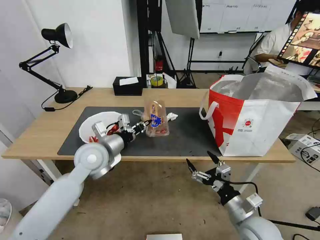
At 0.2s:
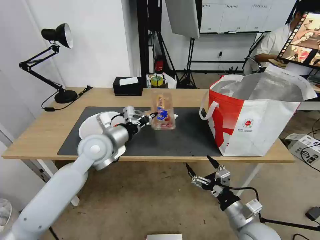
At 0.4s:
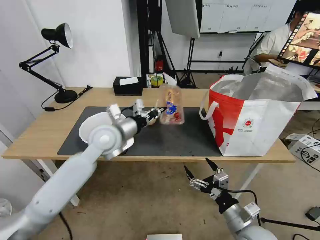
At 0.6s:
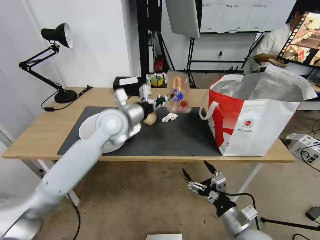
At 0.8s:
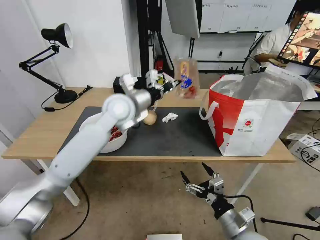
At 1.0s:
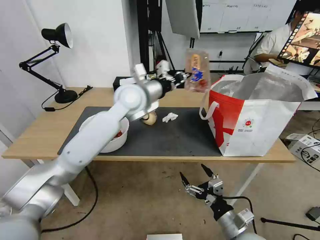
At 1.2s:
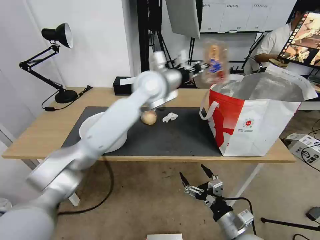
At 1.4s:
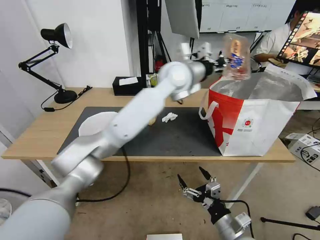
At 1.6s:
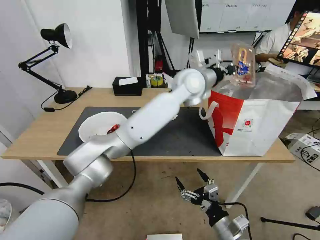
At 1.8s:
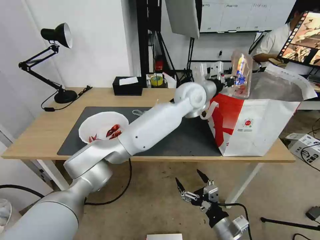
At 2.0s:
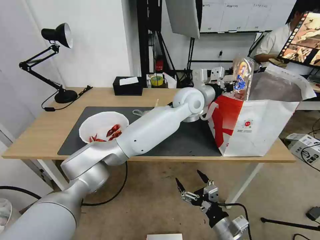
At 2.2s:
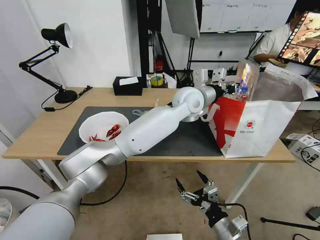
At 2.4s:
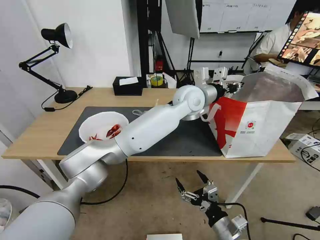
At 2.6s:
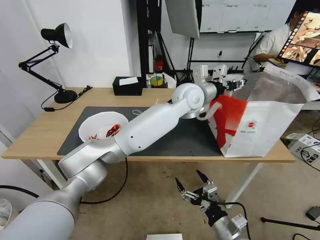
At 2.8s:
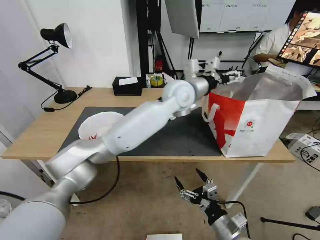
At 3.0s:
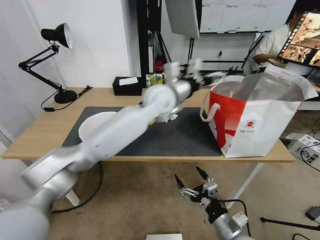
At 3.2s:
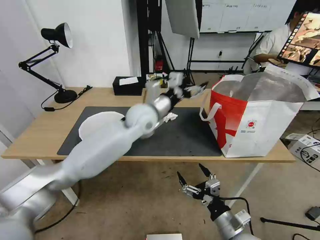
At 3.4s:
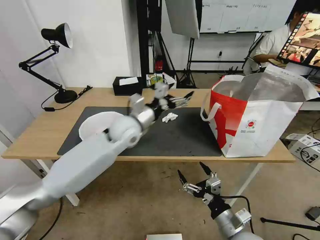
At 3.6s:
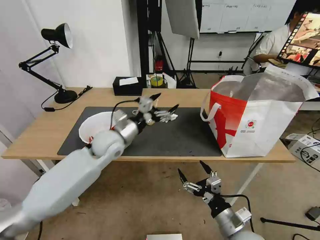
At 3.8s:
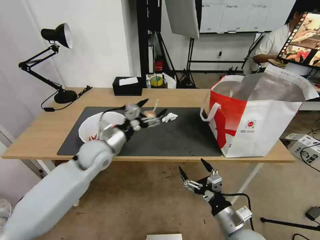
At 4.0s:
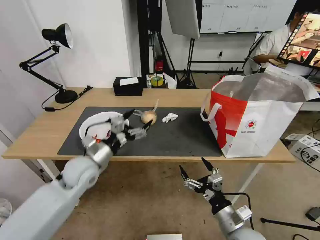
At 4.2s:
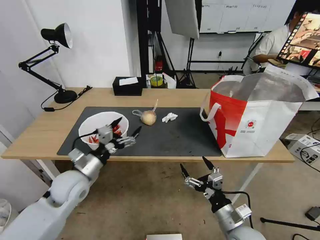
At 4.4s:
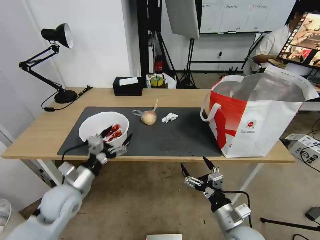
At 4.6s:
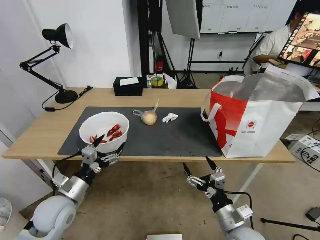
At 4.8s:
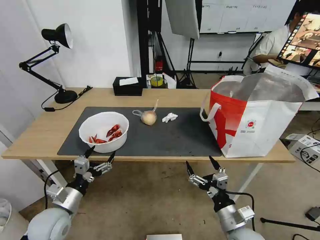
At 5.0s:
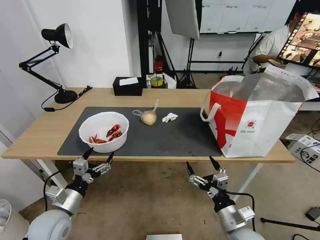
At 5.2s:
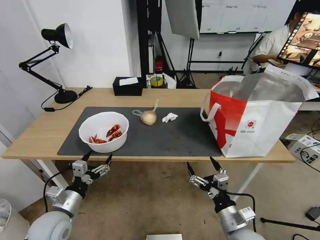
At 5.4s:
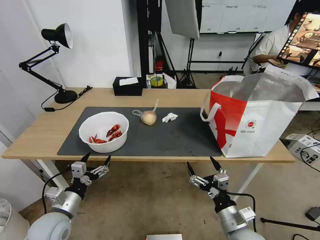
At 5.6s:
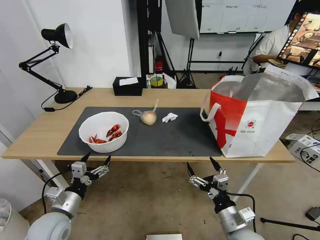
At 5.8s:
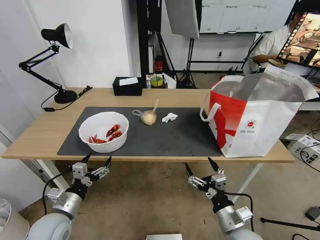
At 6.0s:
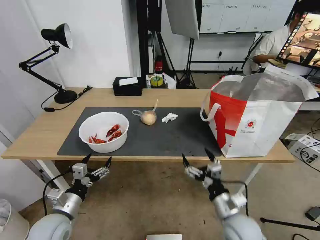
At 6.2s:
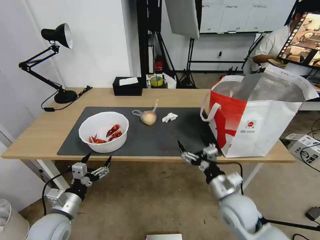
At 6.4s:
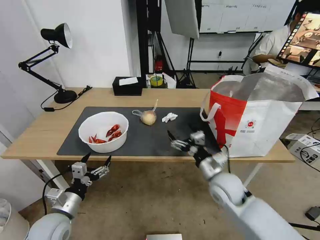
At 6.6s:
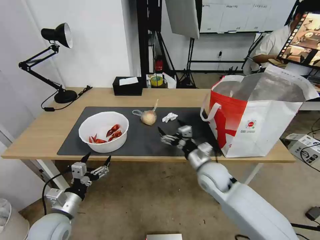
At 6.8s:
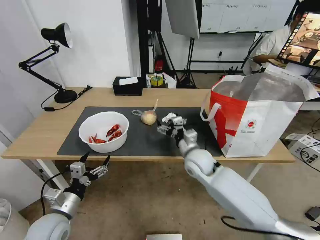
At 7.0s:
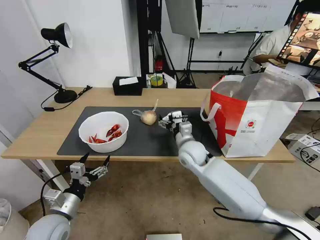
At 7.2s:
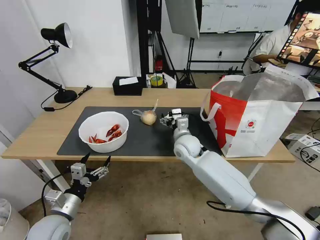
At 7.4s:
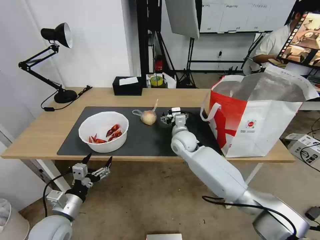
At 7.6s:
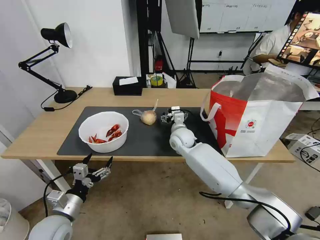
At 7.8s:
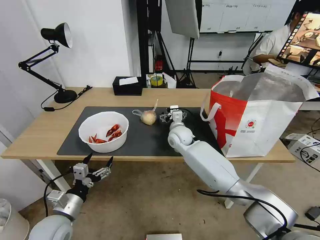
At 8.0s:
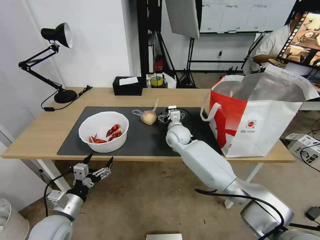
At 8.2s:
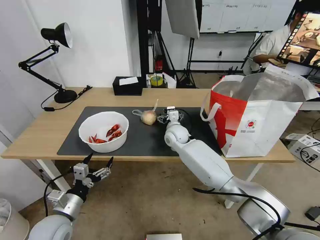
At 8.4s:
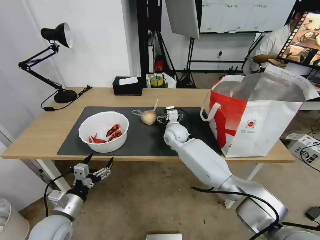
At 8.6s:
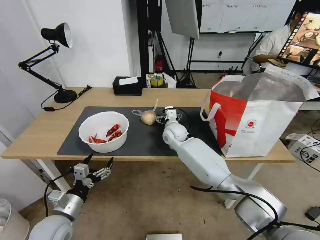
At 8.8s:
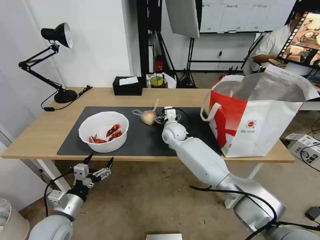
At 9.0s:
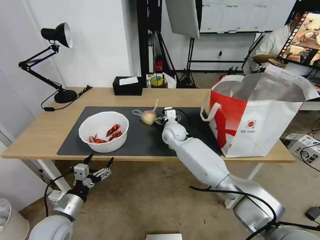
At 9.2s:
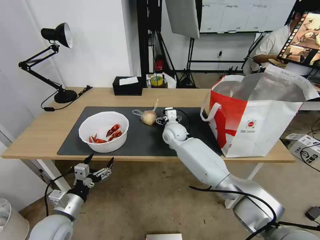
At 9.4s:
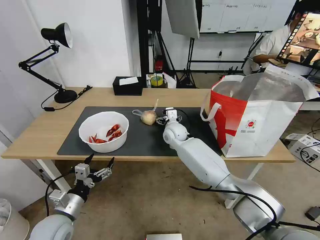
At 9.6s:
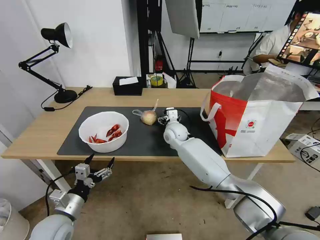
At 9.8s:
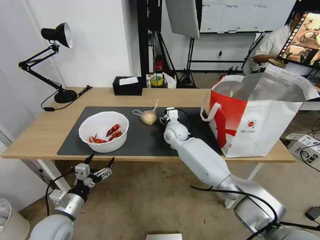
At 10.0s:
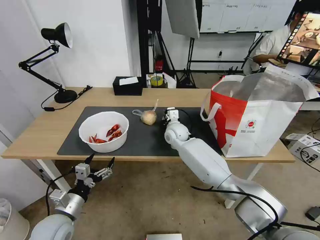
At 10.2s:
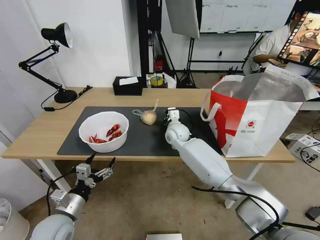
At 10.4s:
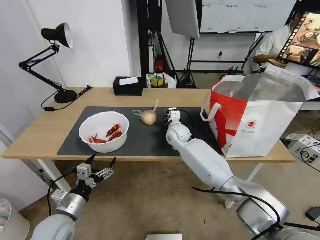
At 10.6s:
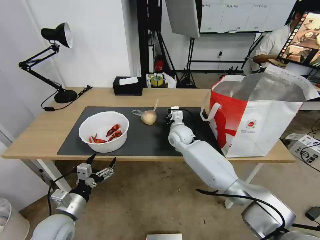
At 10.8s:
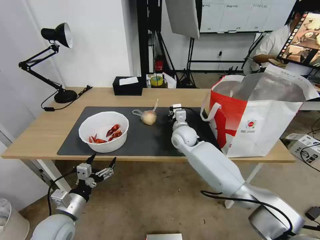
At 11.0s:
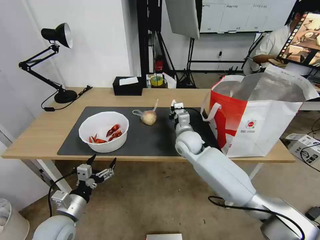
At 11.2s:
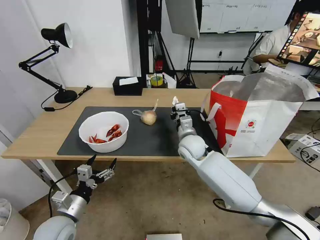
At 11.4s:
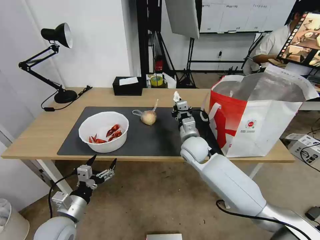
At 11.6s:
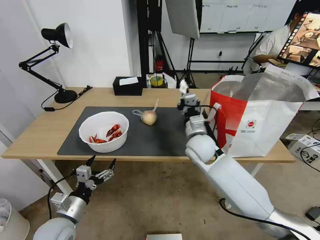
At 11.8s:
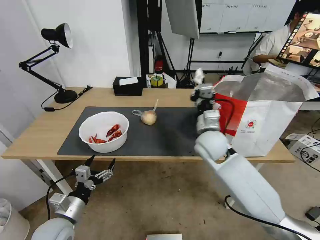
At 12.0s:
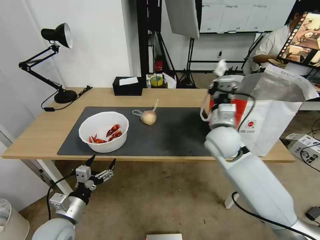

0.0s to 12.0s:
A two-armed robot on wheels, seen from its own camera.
Task of the whole recording: Pick up the trash from the table and place it into the takeout bag.
0.0s to 1.6s: The right gripper heads backward, covering about 5 cm; the left gripper moves to the right, forward and upward, about 35 cm.
1.6s to 3.0s: The left gripper shifts approximately 10 cm to the left, and opens its fingers.
3.0s to 4.4s: The left gripper heads to the left, backward and downward, covering roughly 40 cm.
4.4s to 6.0s: The left gripper heads backward and downward, covering roughly 10 cm.
6.0s to 7.6s: The right gripper heads forward and to the left, covering roughly 35 cm.
7.6s to 9.0s: The grippers stay close to where they were, moving slightly.
9.0s to 10.4s: The right gripper closes.
10.4s to 12.0s: The right gripper is displaced backward, upward and to the right by about 20 cm.

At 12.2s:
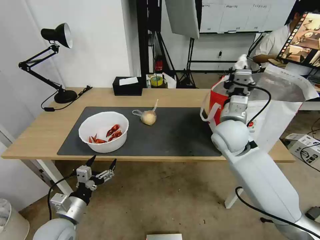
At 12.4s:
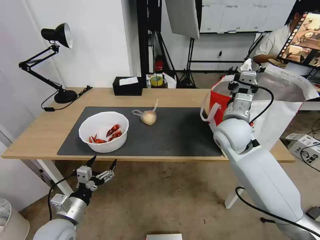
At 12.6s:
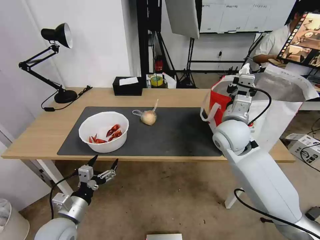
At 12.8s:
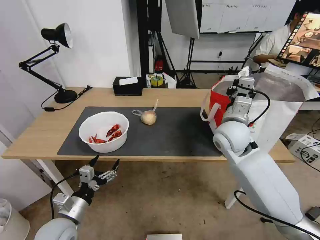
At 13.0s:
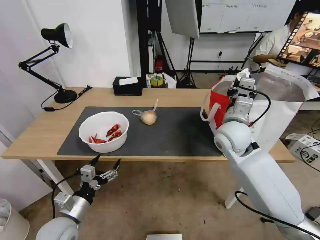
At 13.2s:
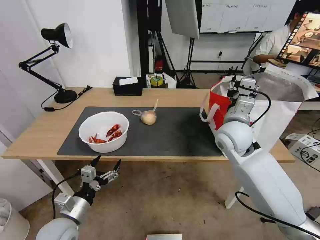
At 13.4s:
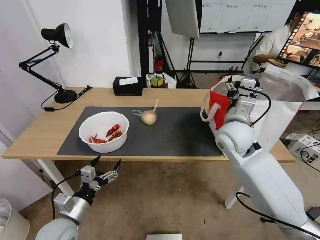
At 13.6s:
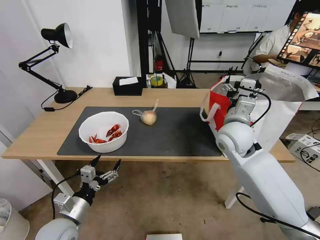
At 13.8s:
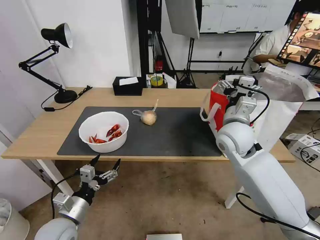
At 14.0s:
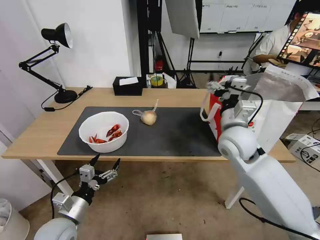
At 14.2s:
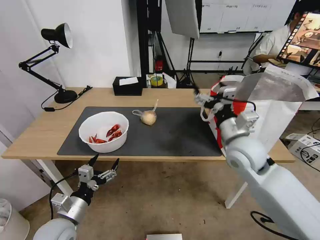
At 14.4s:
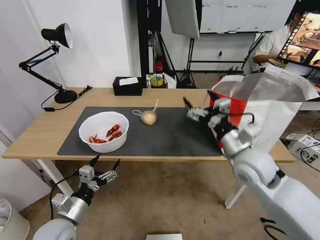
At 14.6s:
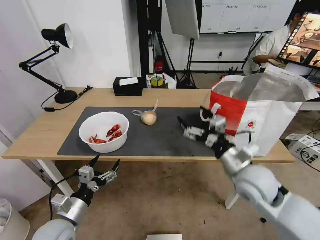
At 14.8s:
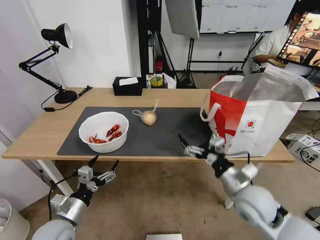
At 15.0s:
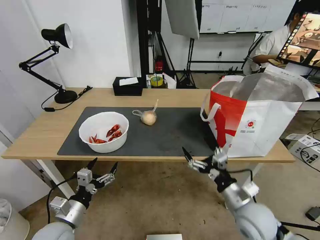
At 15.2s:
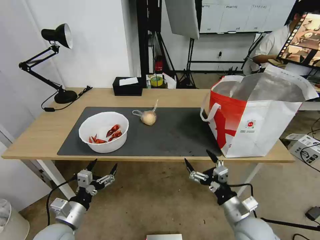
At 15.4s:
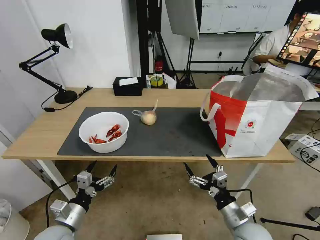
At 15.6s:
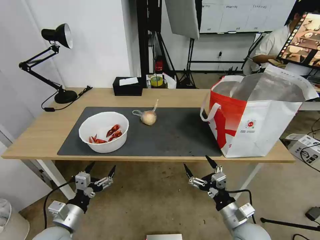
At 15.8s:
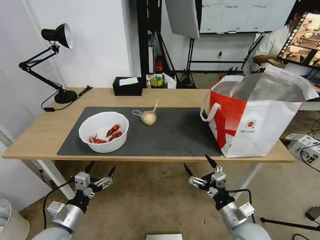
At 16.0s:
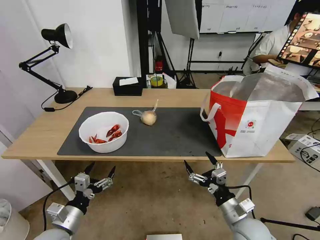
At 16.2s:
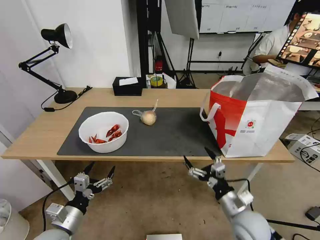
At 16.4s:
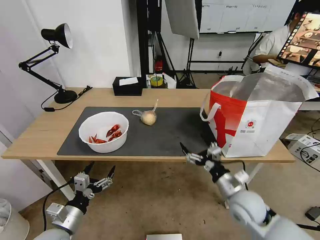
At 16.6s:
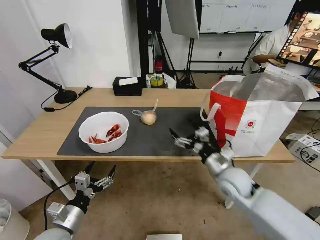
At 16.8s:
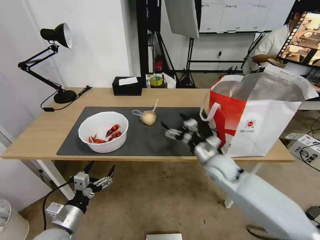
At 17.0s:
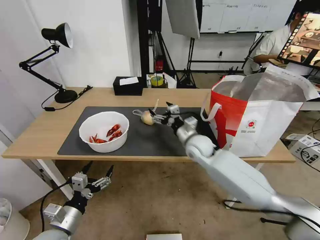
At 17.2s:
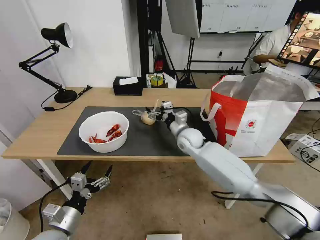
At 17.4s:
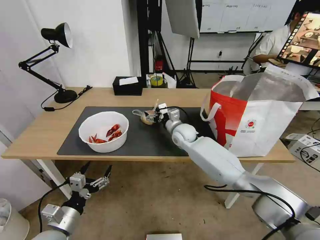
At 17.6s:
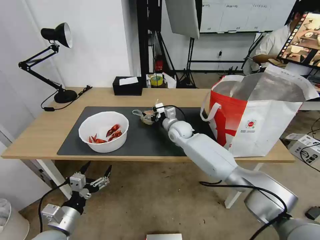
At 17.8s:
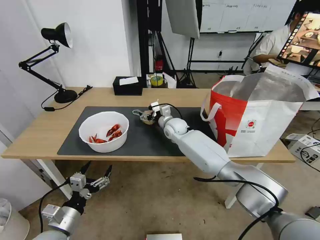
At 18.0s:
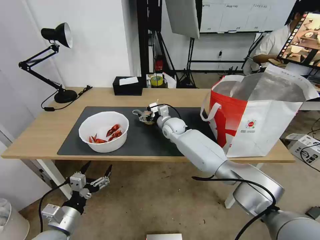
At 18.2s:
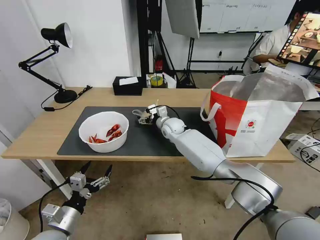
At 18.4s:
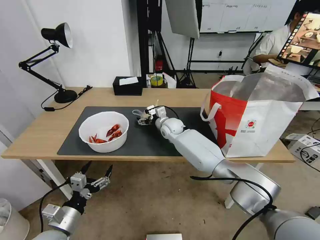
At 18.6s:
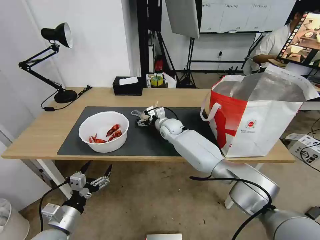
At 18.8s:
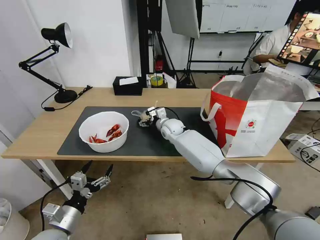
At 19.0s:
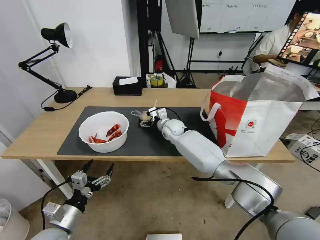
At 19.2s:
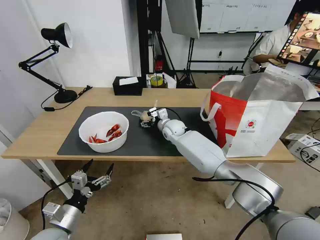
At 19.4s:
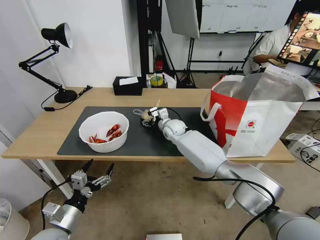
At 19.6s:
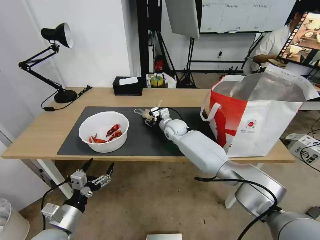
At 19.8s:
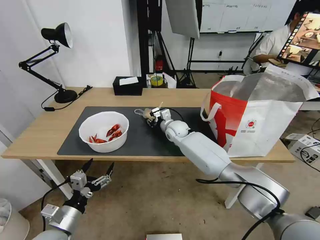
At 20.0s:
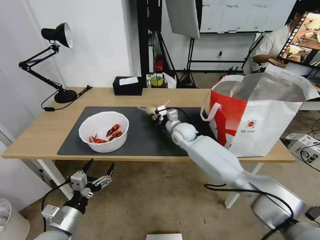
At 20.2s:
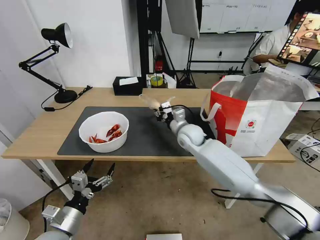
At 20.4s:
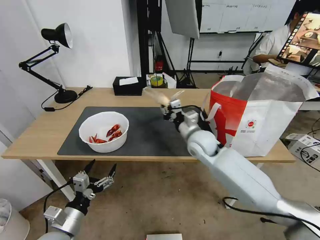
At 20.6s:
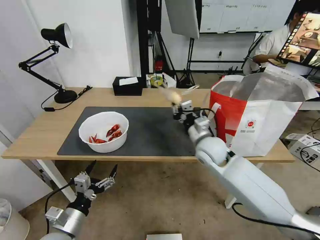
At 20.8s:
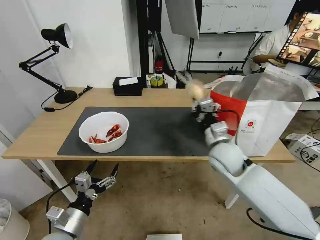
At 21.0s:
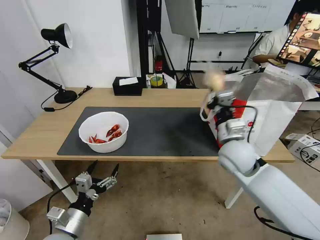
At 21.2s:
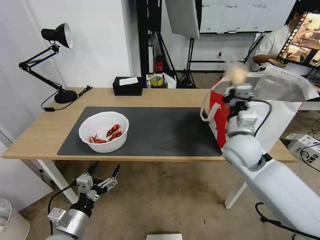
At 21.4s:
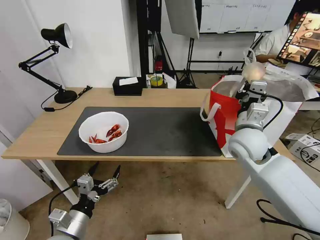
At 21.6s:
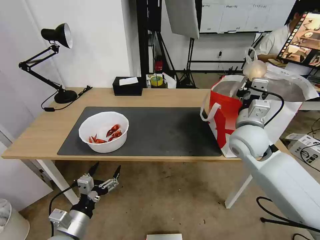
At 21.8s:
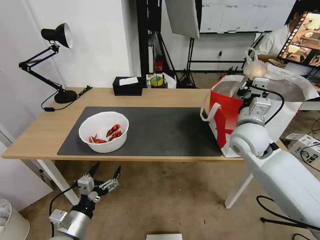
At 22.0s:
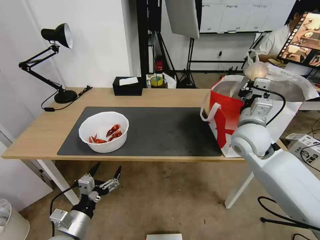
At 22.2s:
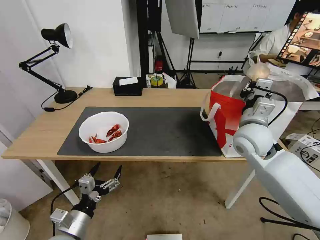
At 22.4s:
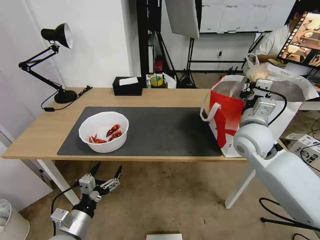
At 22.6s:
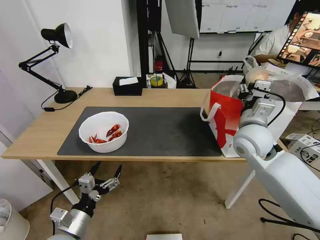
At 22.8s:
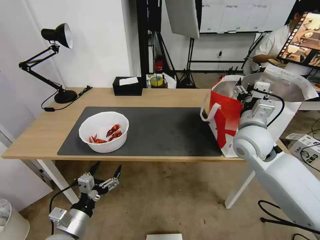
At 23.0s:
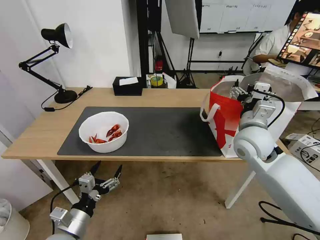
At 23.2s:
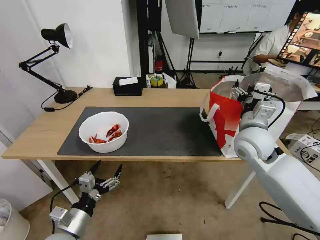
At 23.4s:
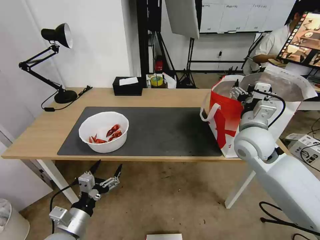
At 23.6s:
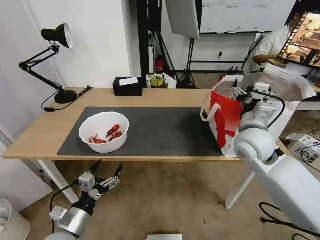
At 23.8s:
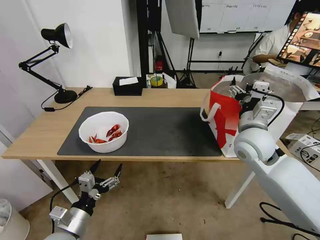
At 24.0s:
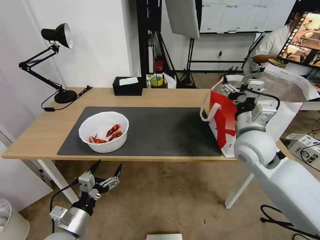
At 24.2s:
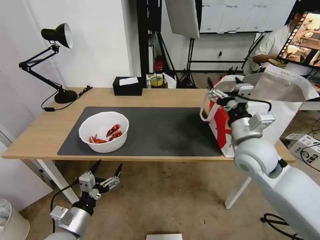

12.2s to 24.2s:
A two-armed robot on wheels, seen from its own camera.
Task of the whole recording: Pick up the trash from the table and place it into the takeout bag.
12.2s to 13.8s: The right gripper opens up.
13.8s to 15.2s: The right gripper is displaced backward and downward by about 25 cm.
15.2s to 16.6s: The right gripper travels forward by roughly 15 cm.
16.6s to 18.2s: The right gripper shifts some 30 cm forward and to the left.
18.2s to 19.8s: The right gripper closes up.
19.8s to 21.2s: The right gripper is displaced backward, to the right and upward by approximately 30 cm.
21.2s to 22.6s: The right gripper opens up.
22.6s to 24.2s: The right gripper opens its fingers.
